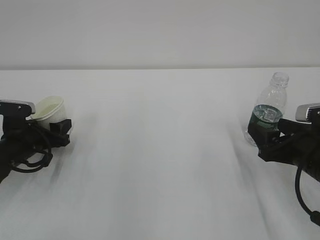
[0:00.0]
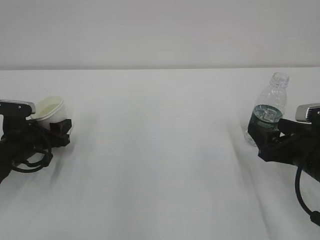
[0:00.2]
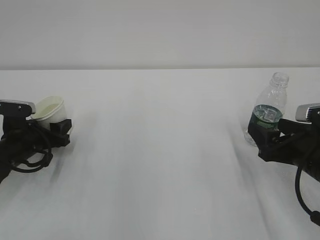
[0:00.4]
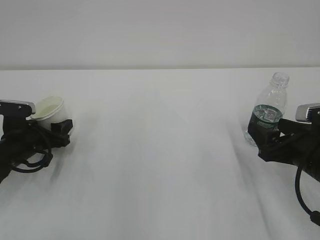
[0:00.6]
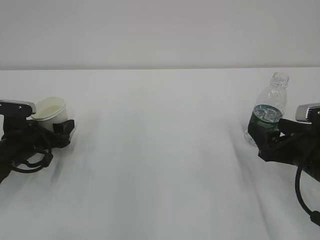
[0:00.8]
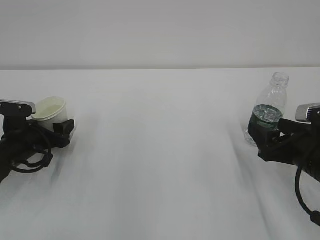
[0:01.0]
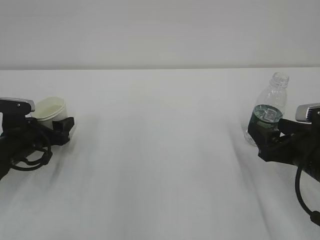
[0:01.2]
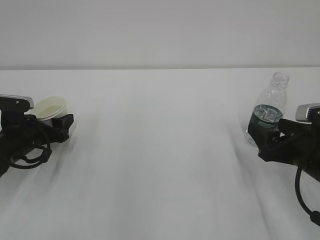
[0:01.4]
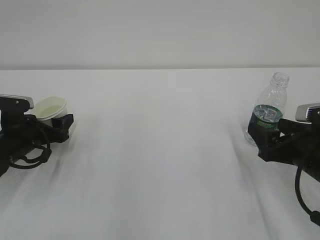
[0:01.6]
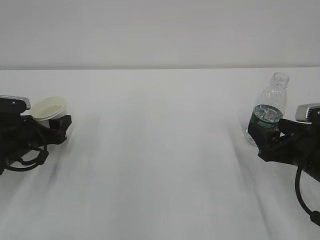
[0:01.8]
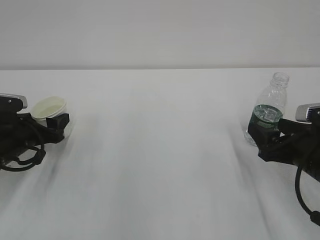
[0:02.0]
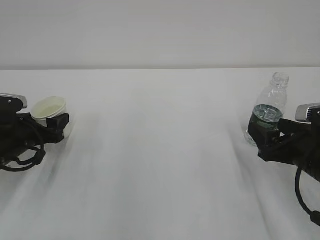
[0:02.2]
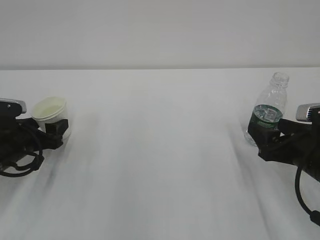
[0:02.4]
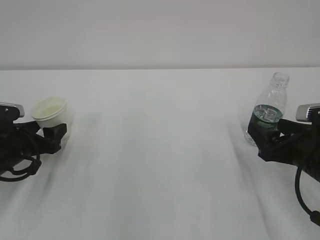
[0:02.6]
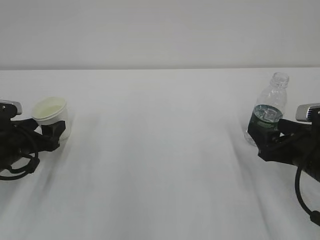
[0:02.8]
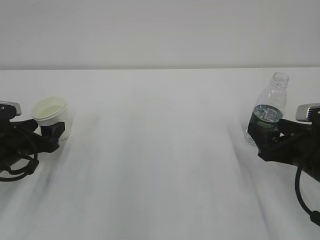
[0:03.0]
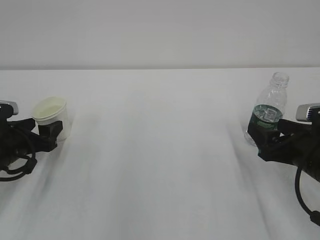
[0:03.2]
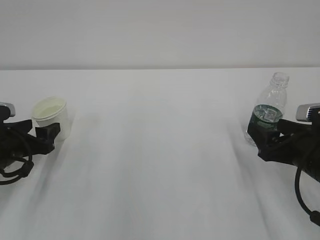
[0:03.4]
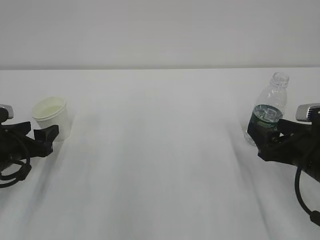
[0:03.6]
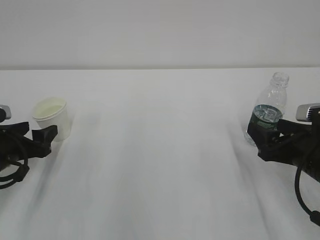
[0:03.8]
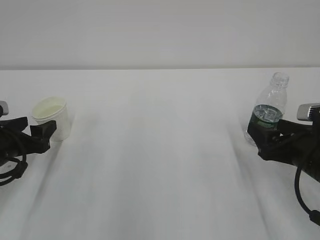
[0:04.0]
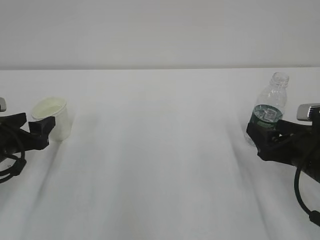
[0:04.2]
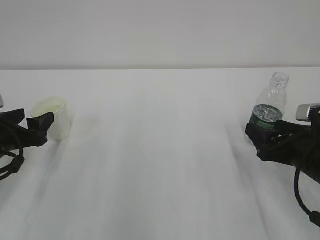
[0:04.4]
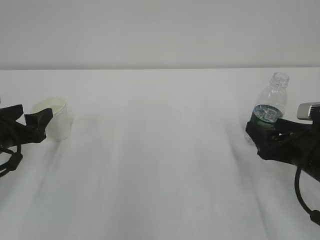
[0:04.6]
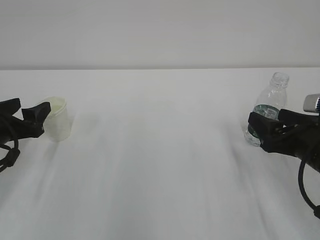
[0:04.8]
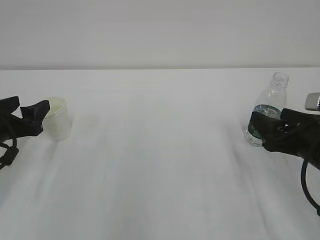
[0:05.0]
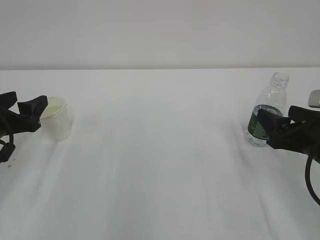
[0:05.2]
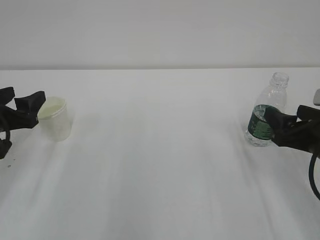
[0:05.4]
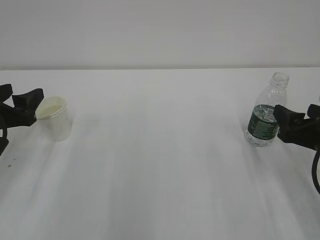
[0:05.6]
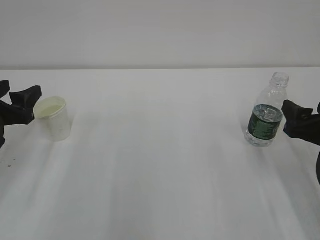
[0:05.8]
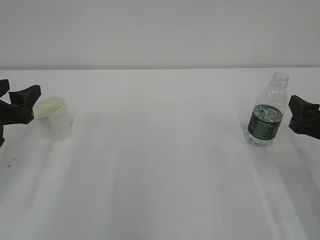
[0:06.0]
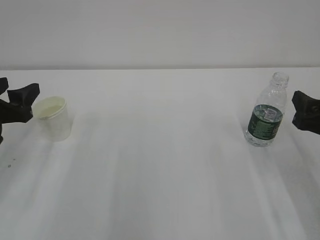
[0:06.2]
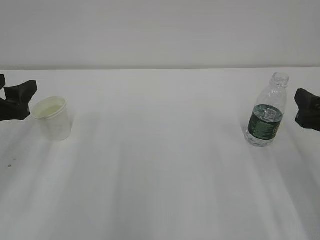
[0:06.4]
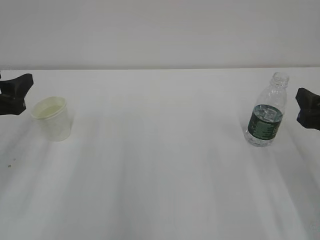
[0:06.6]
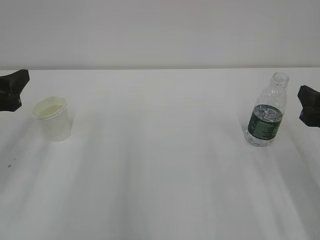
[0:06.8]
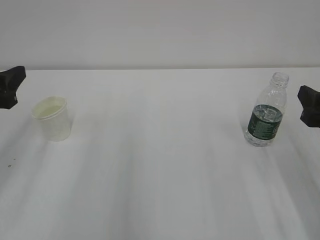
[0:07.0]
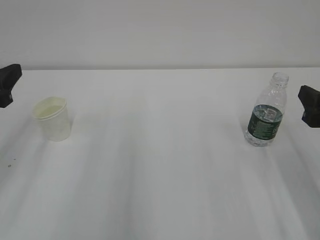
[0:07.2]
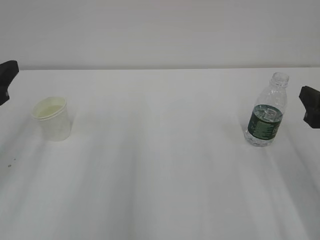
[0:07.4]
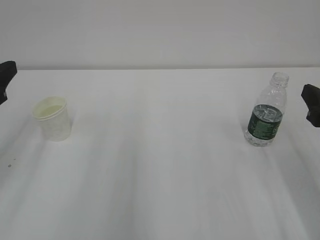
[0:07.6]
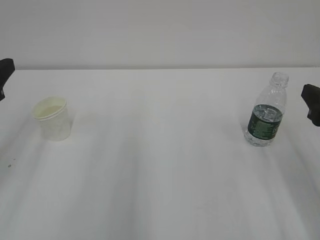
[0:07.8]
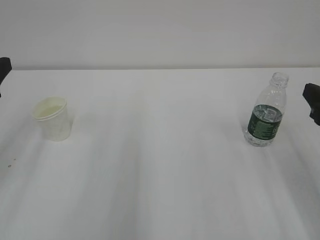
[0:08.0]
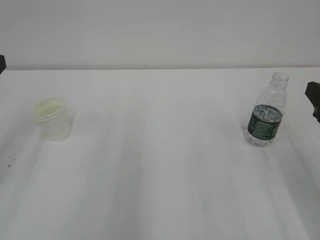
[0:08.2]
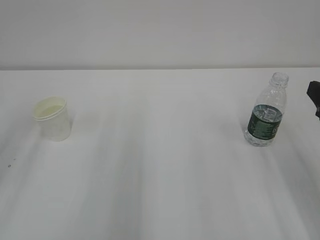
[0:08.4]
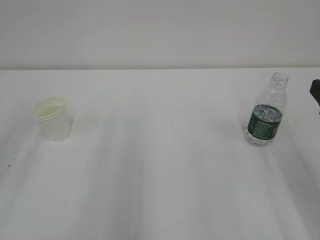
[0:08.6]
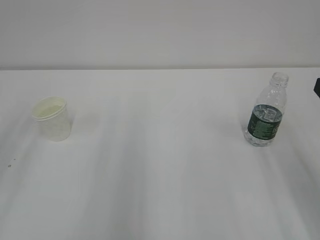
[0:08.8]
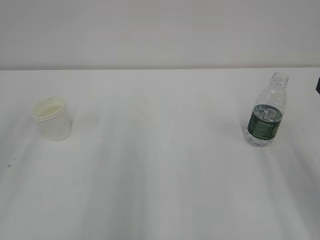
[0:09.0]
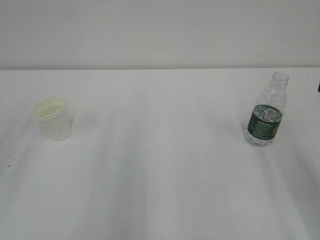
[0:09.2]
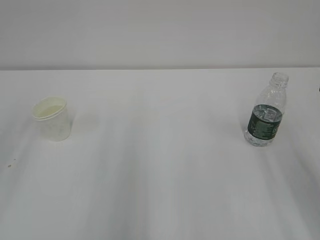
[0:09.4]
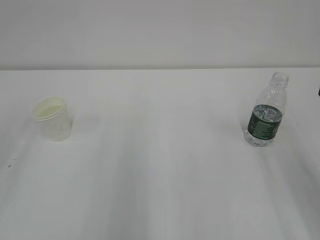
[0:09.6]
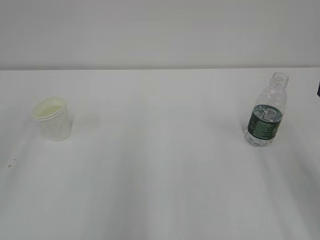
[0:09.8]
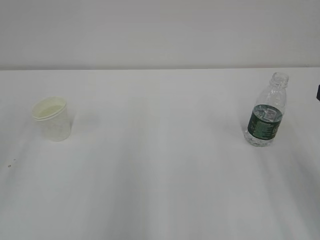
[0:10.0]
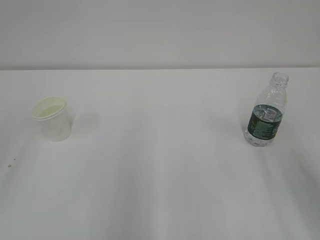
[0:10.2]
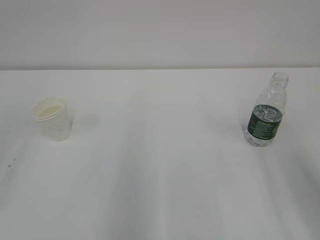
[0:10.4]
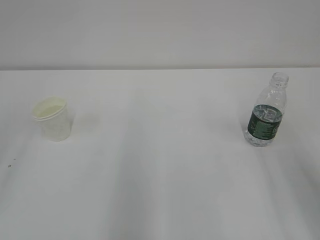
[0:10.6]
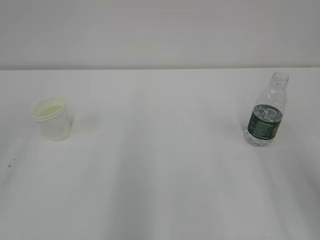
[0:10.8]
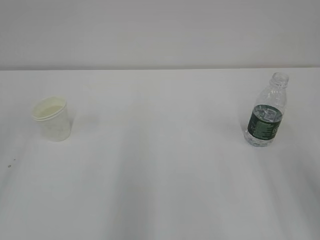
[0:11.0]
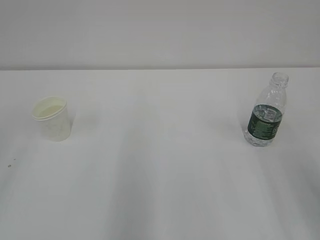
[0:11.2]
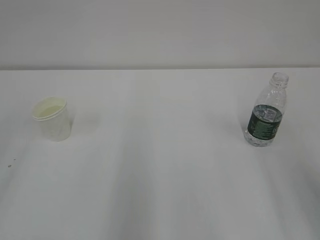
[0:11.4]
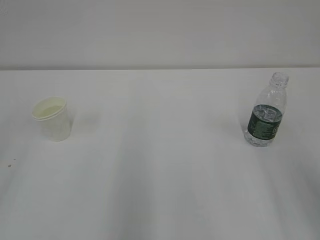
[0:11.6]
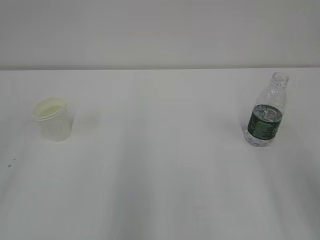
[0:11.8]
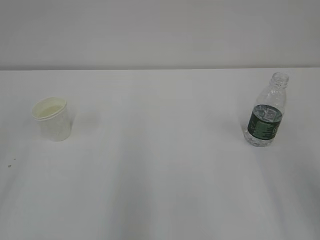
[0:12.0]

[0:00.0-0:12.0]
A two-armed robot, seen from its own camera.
0:00.0 to 0:01.6: The left gripper opens its fingers.
0:01.6 to 0:03.0: The grippers stay close to where they were, moving slightly.
0:03.0 to 0:04.4: The grippers stay close to where they were, moving slightly.
0:04.4 to 0:06.0: The left gripper heads upward, covering about 5 cm. The right gripper shifts by roughly 5 cm.
0:06.0 to 0:07.6: The left gripper heads upward, covering approximately 5 cm; the right gripper moves approximately 5 cm.
0:07.6 to 0:09.0: The right gripper changes place by about 5 cm.
